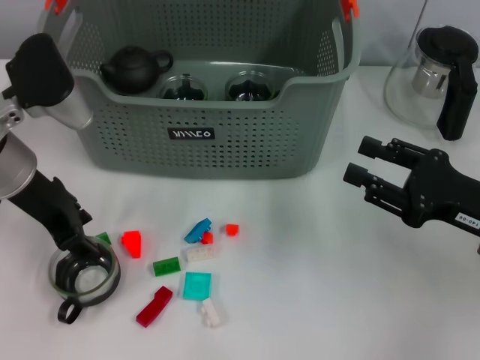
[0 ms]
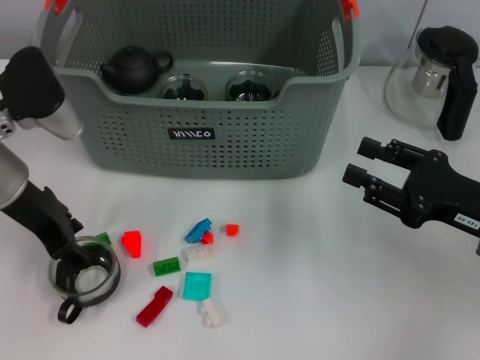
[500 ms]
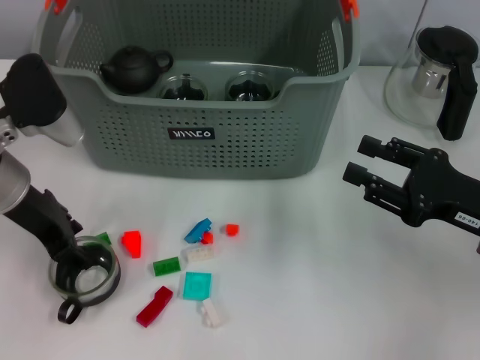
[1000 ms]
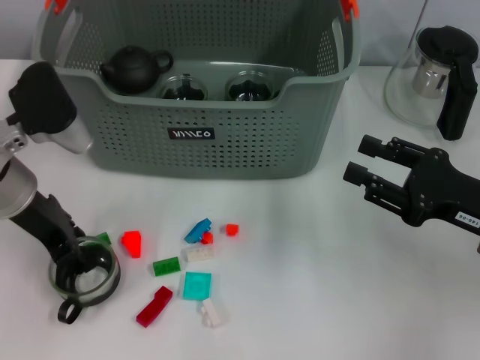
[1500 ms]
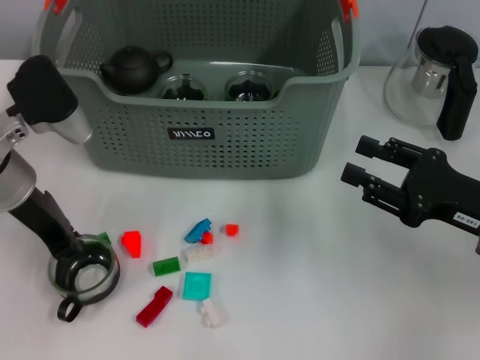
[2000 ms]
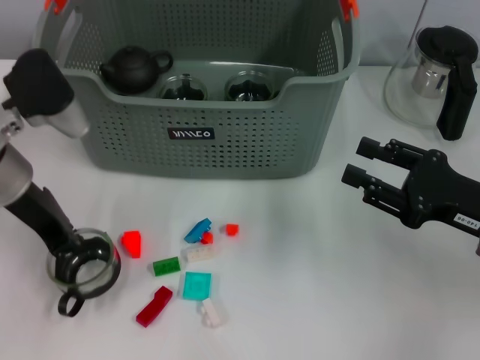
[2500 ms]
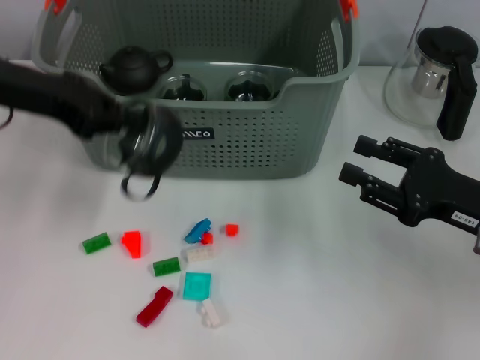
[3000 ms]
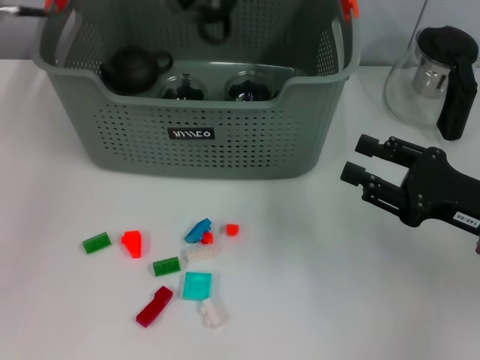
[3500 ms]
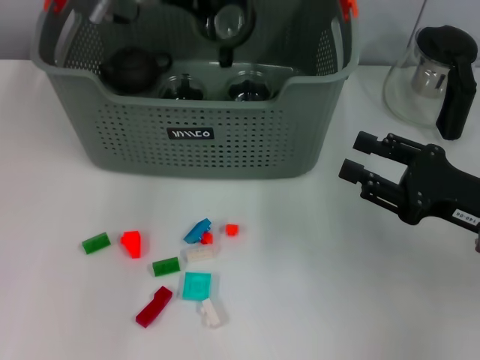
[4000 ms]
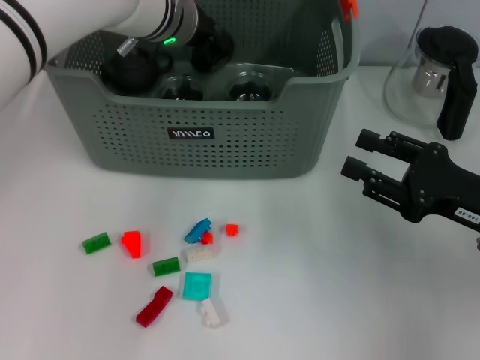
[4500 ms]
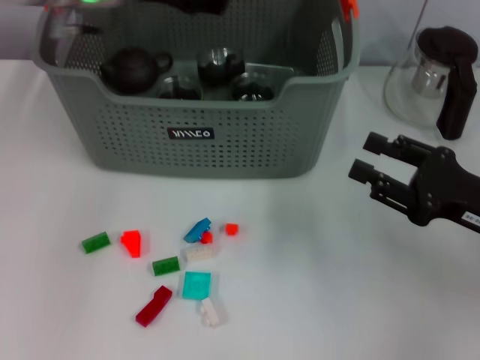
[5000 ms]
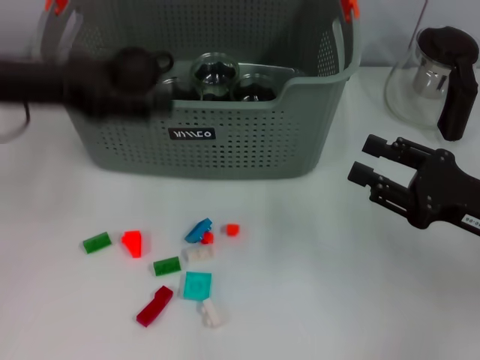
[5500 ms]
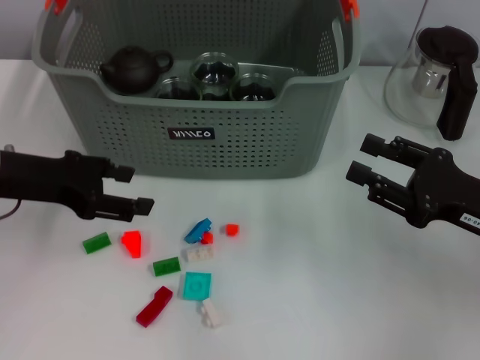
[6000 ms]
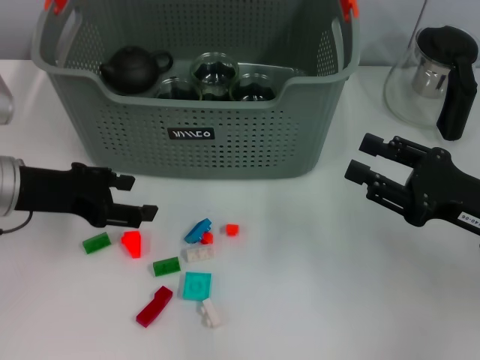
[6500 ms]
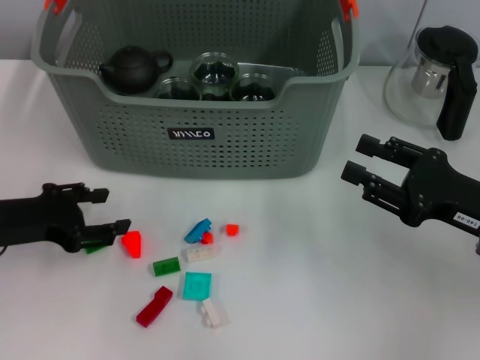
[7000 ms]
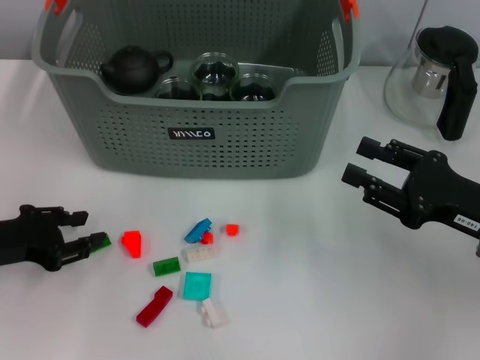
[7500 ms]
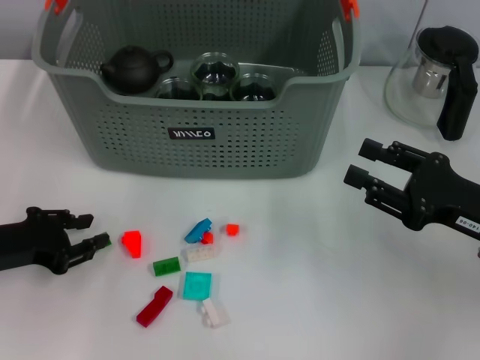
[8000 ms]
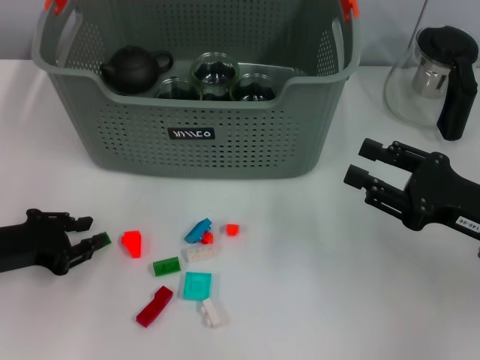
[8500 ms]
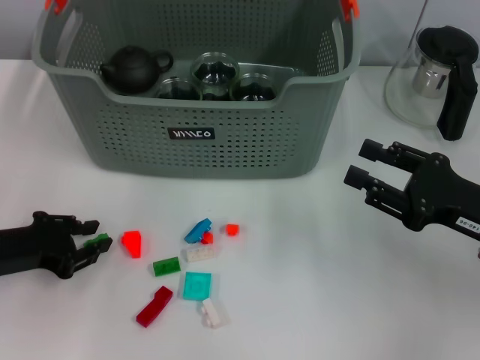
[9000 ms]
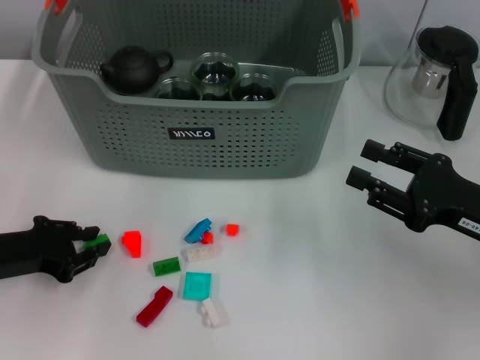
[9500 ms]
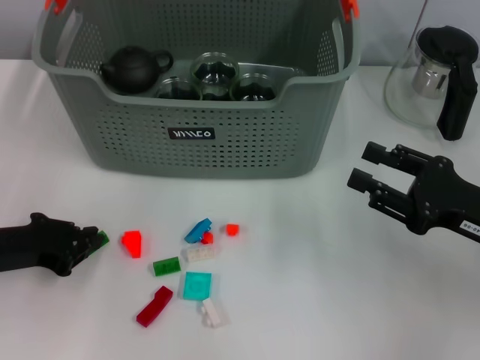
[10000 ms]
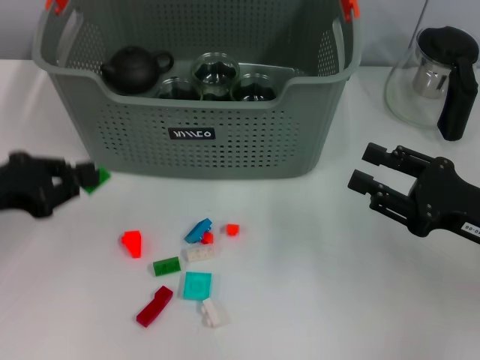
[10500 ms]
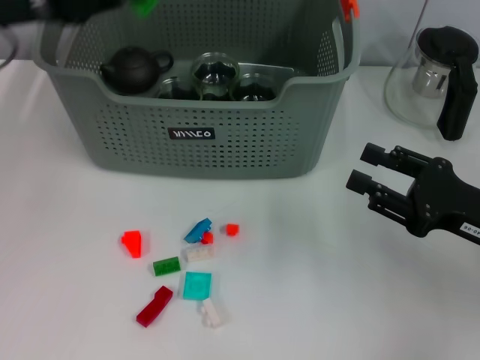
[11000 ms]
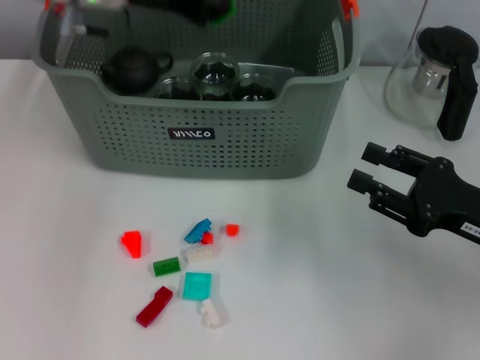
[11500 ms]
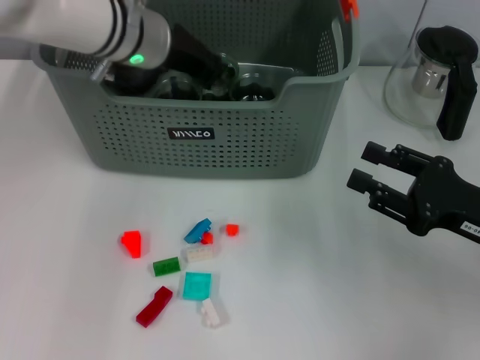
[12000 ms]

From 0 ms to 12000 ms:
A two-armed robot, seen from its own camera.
Task of the whole recording: pick up the teacup on the table and place it into the storage bin, pick up the block on the table and place it into the storage bin.
Step, from 0 ms to 2000 ms: Grasp the cup with left gripper.
Step, from 2500 ms to 4500 ms: Place the cup in the storage box with left gripper.
Step, from 5000 ms to 9500 ms: Grasp the green block with left gripper.
From 0 ms to 2000 ms: The grippers stay close to where they were, moving slightly.
From 2000 ms to 4000 ms: The left gripper moves forward, to the right and upward, roughly 20 cm.
From 4000 ms to 6000 ms: The left gripper travels to the left, backward and downward by about 25 cm, and opens its fingers.
From 6000 ms to 8000 ms: The left gripper heads downward and backward, covering some 10 cm, and closes its fingers.
From 8000 ms to 10000 ms: The left gripper closes.
From 10000 ms to 12000 ms: The left gripper moves forward, to the right and upward, some 30 cm.

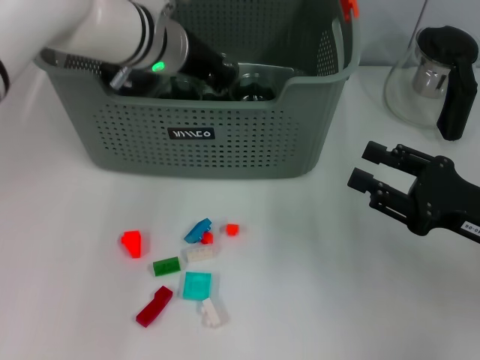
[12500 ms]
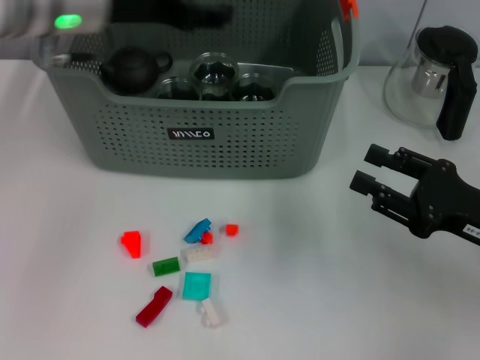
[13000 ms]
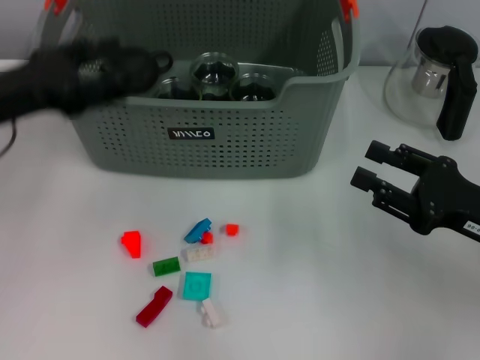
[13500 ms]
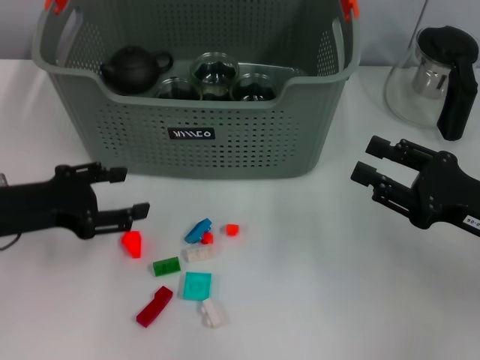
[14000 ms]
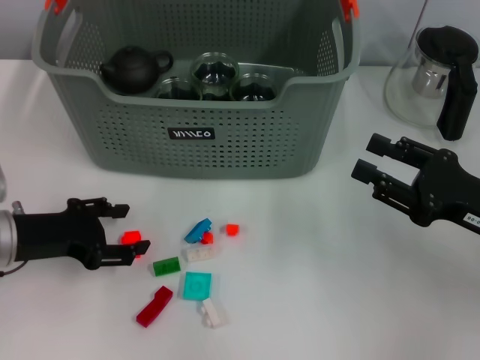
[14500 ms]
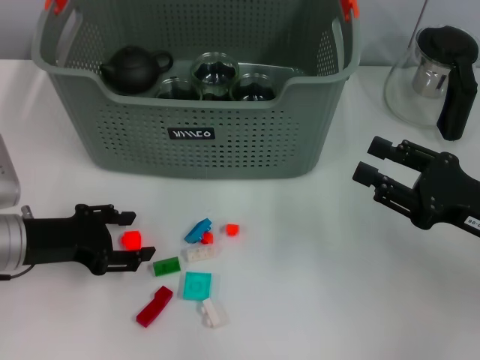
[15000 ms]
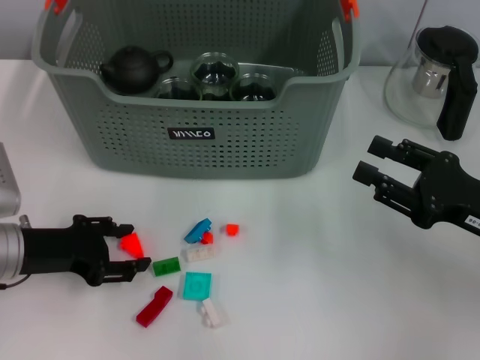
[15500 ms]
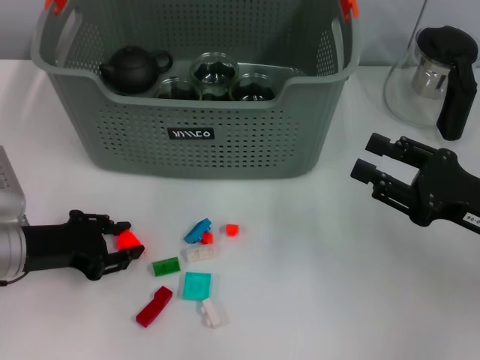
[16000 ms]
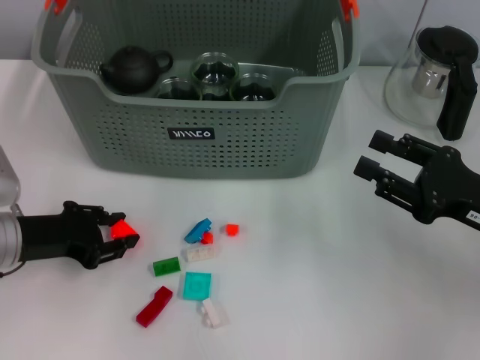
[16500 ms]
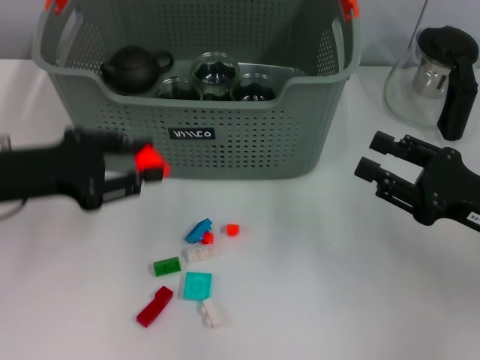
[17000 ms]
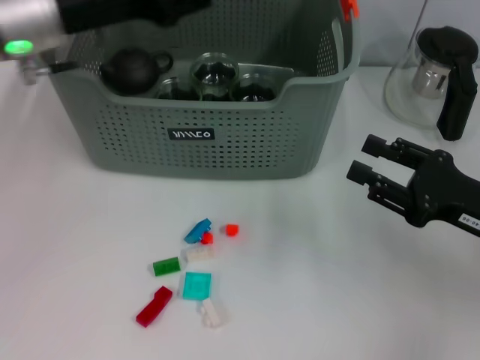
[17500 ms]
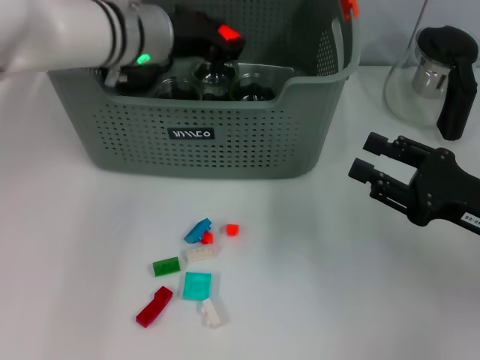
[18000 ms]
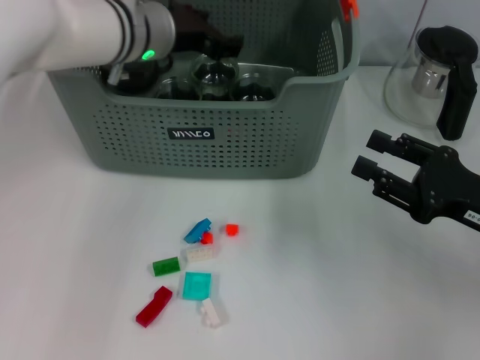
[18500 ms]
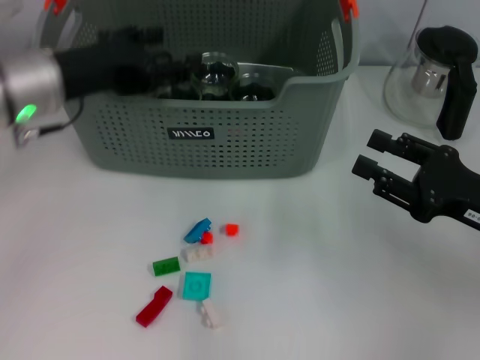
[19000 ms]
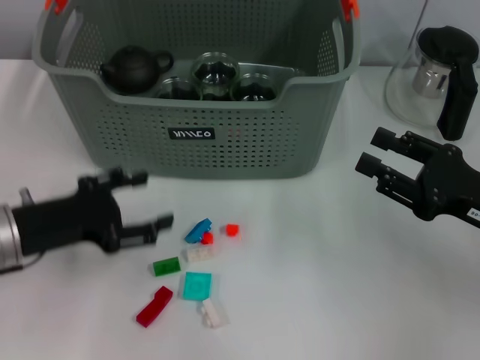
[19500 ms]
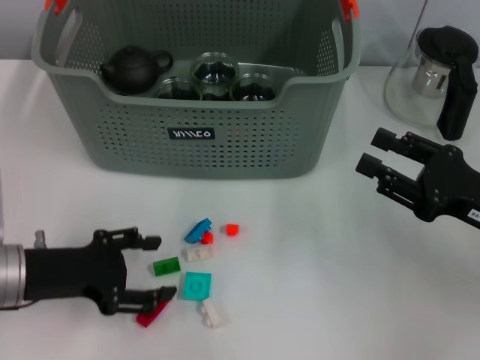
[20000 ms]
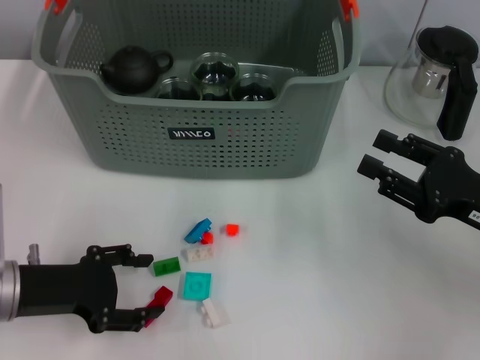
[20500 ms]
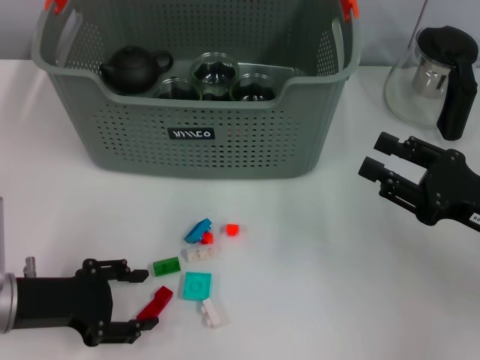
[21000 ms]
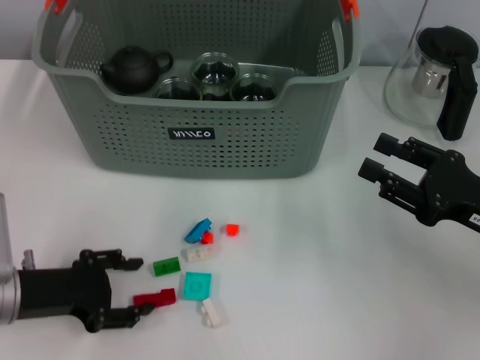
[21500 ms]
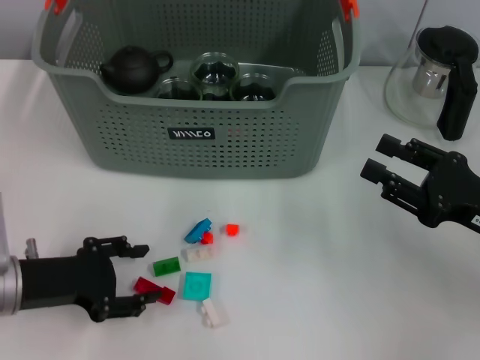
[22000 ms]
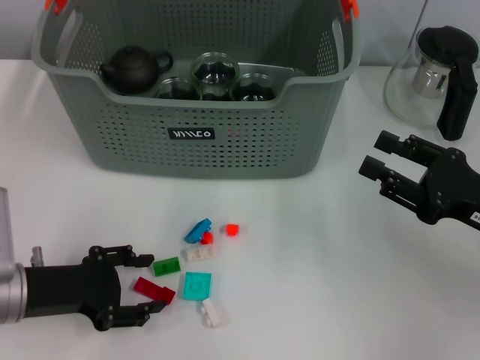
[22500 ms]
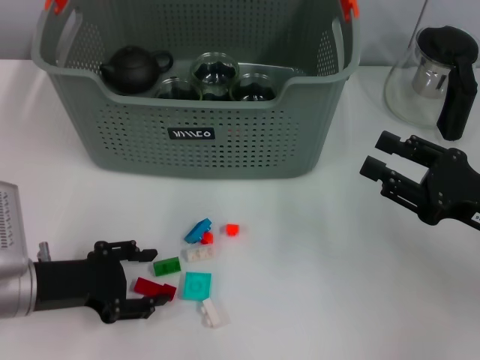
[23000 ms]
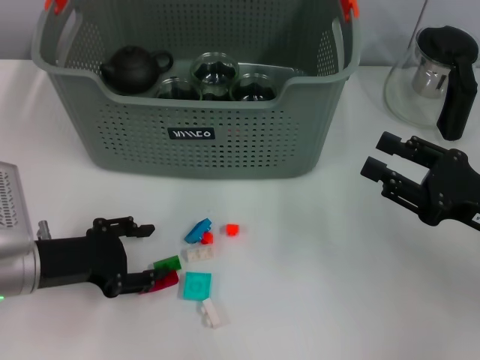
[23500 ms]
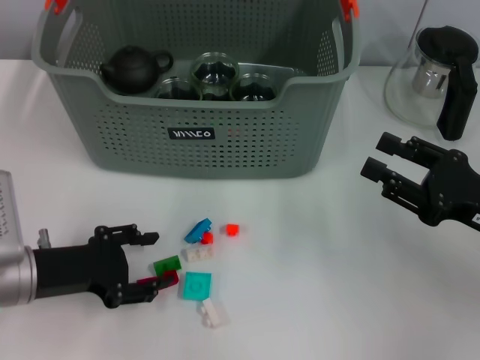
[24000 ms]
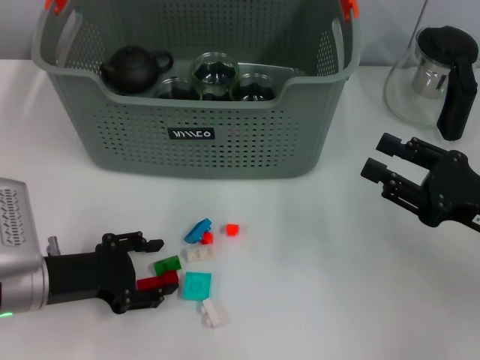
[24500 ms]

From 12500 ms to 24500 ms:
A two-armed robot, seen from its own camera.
Task of the whole recording: pick up the teacup on the table and place it into the storage bin, pick up the block on the table and place it into the storage bin.
Step, from 13000 ms to 16000 ms: Grasp the orange block with left gripper.
Step, from 16500 ms to 18000 ms: Place the orange block in the storage box with left gripper.
From 12500 ms to 14500 ms: The left gripper moves to the left, backward and downward, about 25 cm, and opens.
From 14500 ms to 16500 ms: The left gripper closes its fingers.
From 16500 ms to 18500 ms: The left gripper heads forward, to the right and upward, covering roughly 25 cm.
From 18500 ms to 20500 ms: The left gripper moves backward, to the left and downward, roughly 30 cm, and opens.
From 20500 ms to 24500 ms: The grippers stay close to where they were, moving slightly.

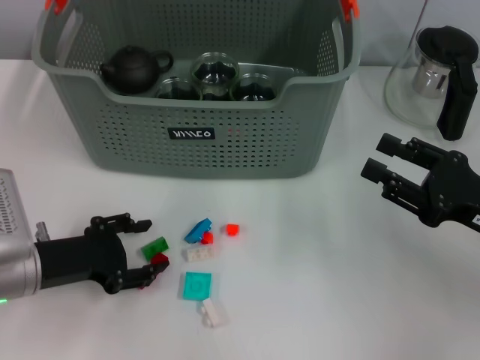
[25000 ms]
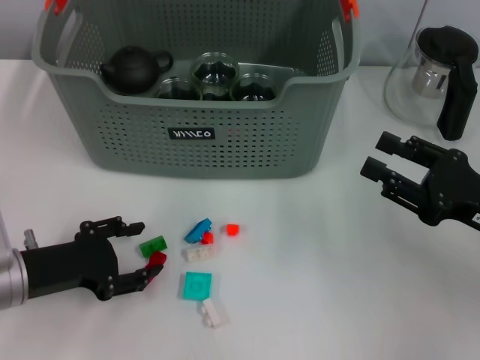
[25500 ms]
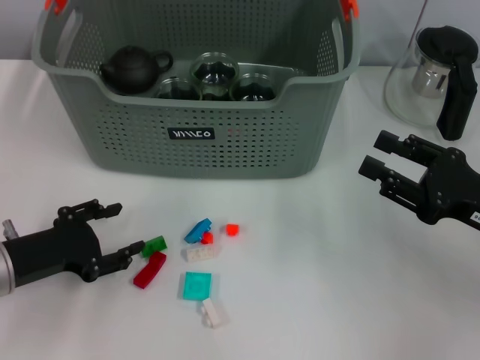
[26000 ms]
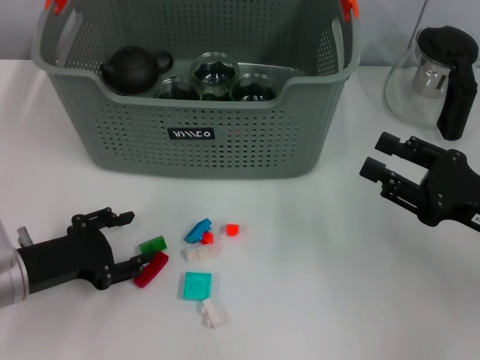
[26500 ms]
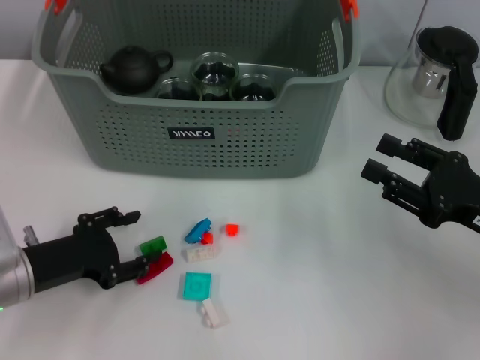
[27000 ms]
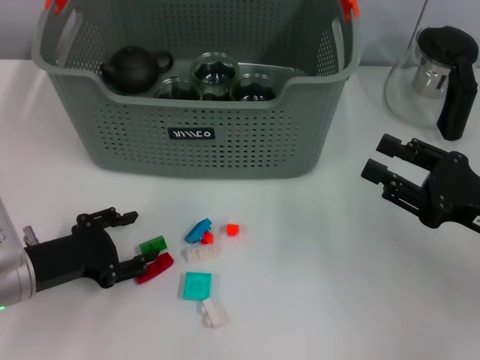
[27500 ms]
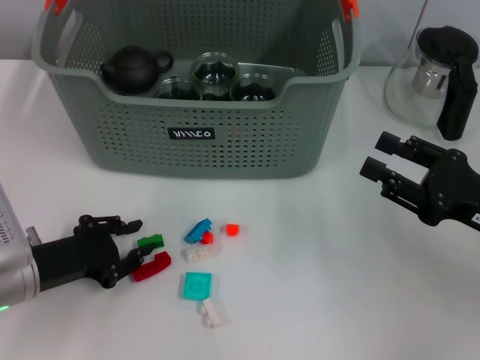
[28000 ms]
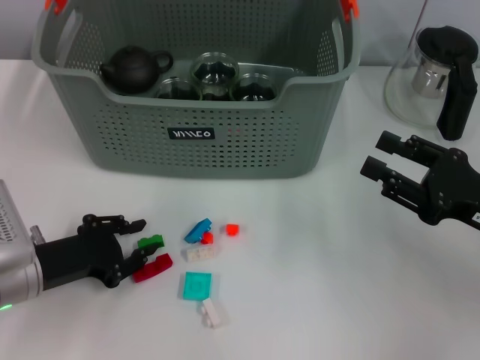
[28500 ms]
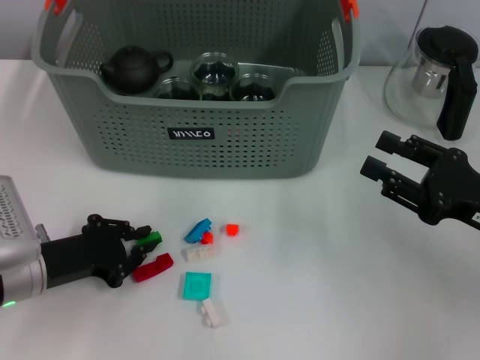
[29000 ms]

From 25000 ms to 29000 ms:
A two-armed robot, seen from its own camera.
Task of the whole recording: pick up the teacup on the table and place it into the storage bin, pick up the block on the table and place it into the storage bin.
From 25000 ms to 27000 ms: The grippers make only small movements.
From 27000 ms to 29000 ms: The left gripper closes up.
